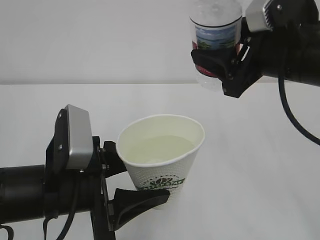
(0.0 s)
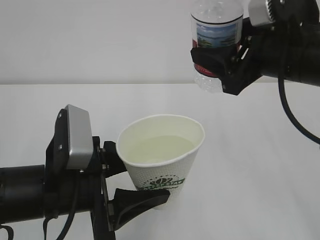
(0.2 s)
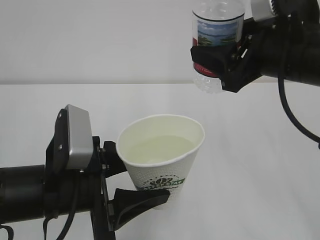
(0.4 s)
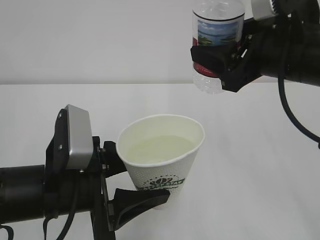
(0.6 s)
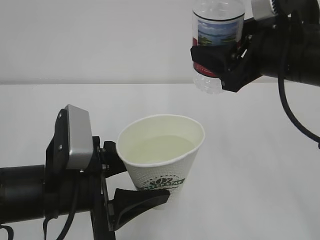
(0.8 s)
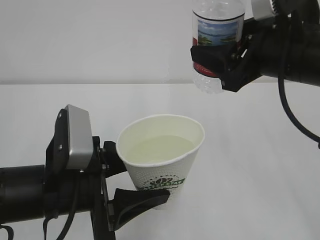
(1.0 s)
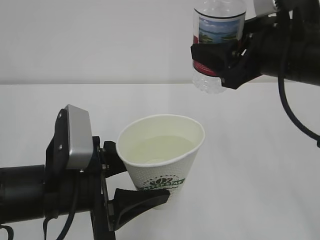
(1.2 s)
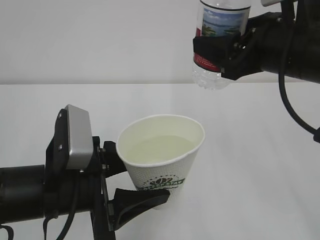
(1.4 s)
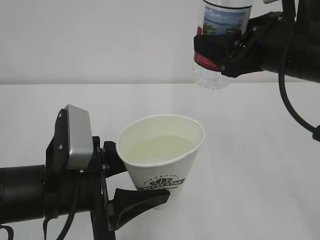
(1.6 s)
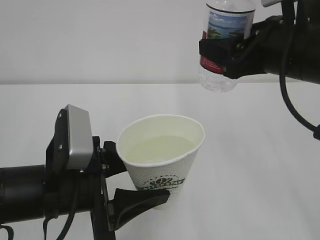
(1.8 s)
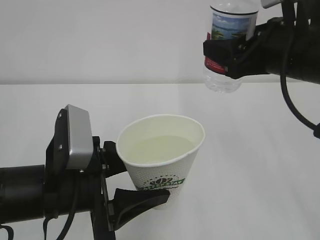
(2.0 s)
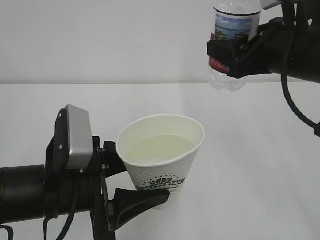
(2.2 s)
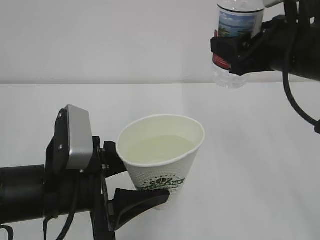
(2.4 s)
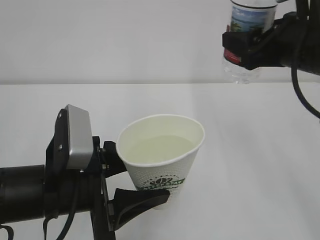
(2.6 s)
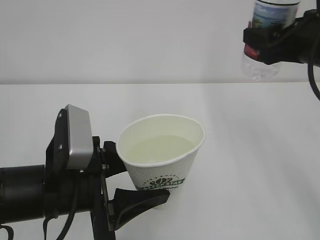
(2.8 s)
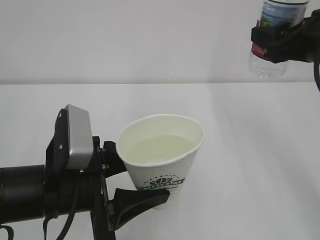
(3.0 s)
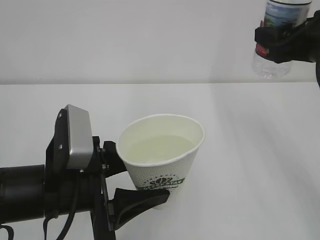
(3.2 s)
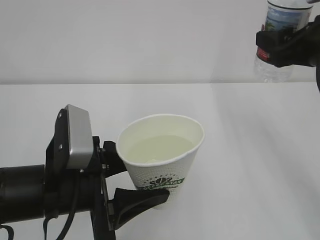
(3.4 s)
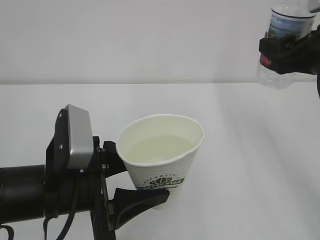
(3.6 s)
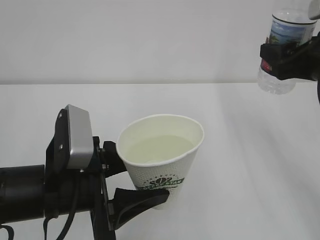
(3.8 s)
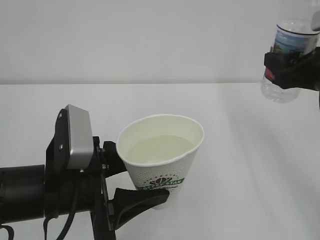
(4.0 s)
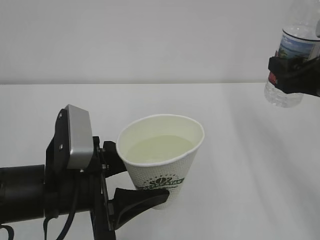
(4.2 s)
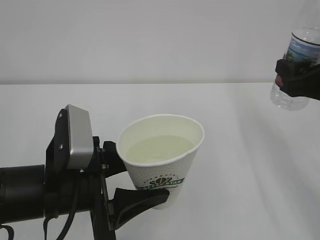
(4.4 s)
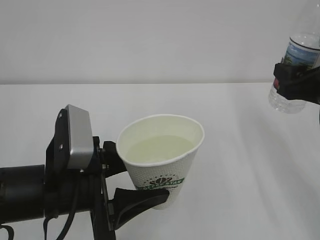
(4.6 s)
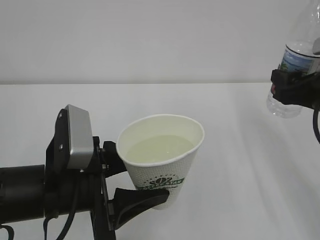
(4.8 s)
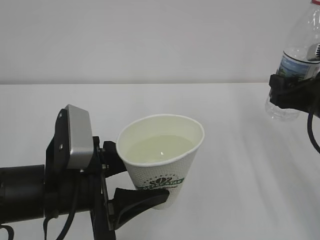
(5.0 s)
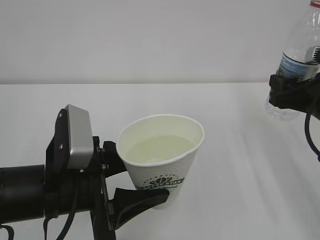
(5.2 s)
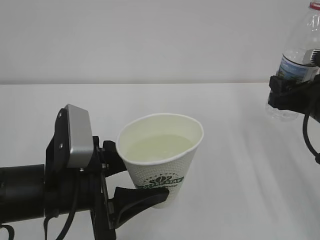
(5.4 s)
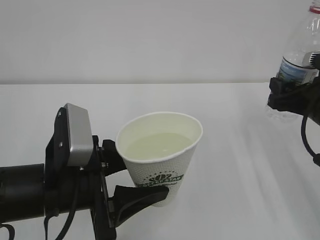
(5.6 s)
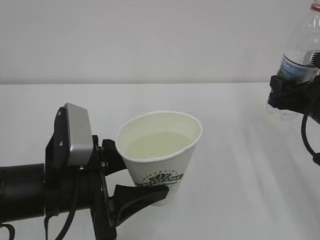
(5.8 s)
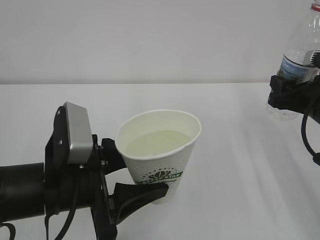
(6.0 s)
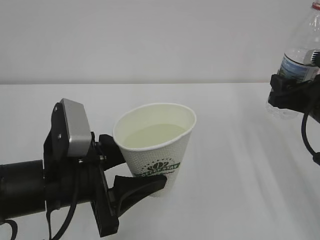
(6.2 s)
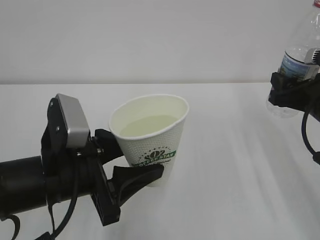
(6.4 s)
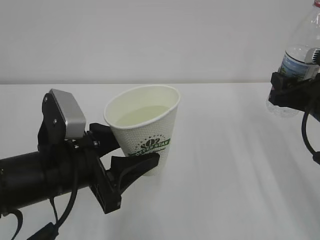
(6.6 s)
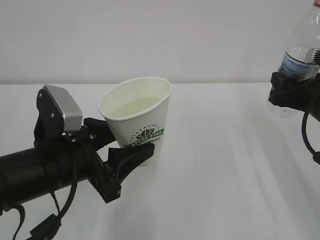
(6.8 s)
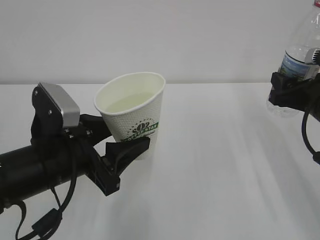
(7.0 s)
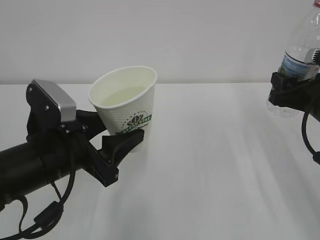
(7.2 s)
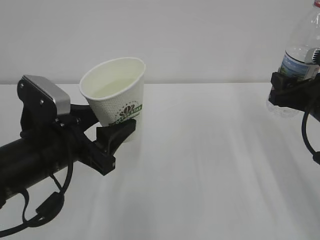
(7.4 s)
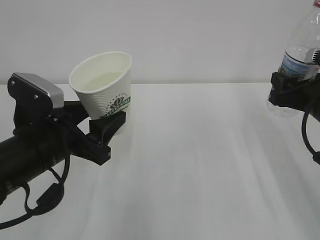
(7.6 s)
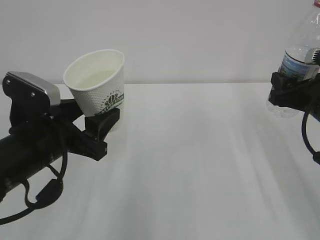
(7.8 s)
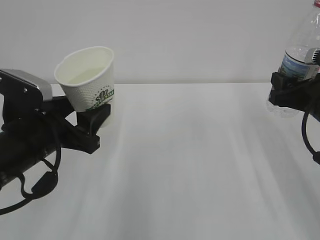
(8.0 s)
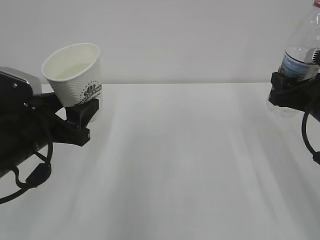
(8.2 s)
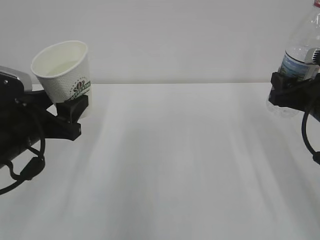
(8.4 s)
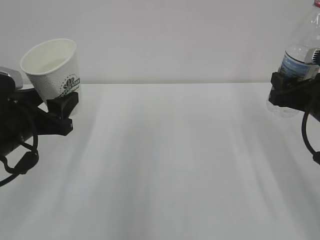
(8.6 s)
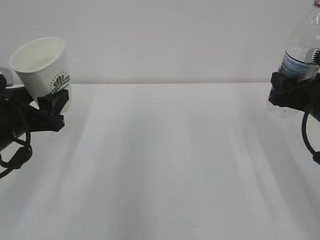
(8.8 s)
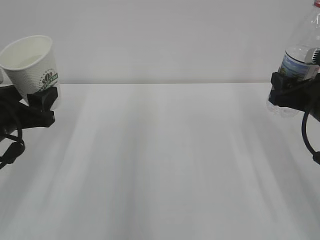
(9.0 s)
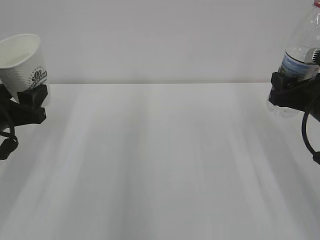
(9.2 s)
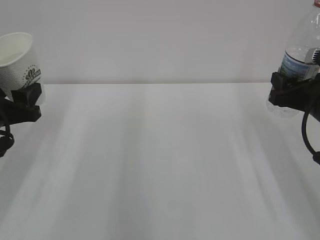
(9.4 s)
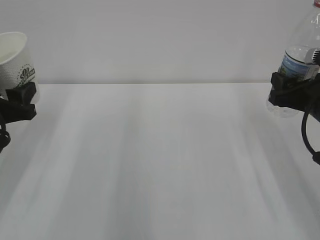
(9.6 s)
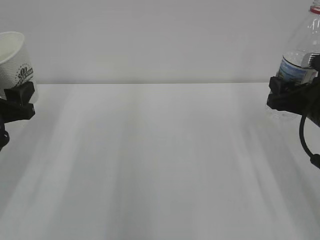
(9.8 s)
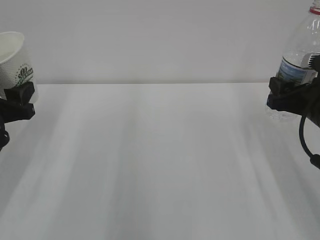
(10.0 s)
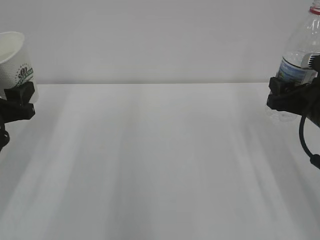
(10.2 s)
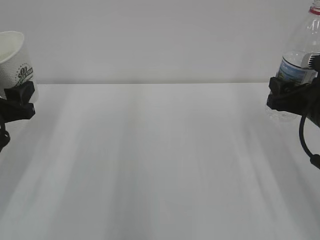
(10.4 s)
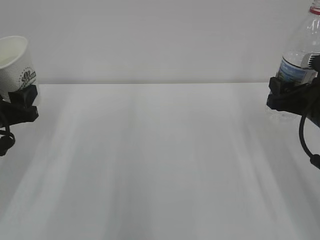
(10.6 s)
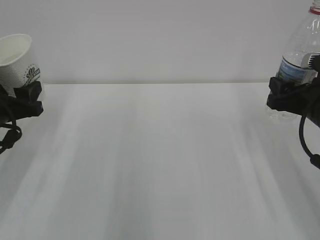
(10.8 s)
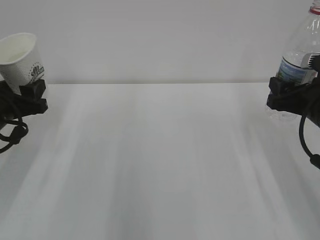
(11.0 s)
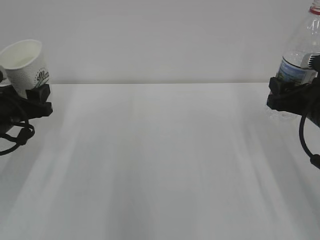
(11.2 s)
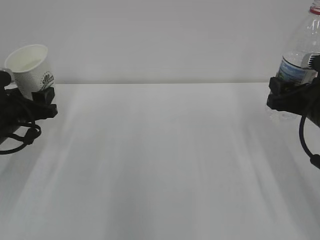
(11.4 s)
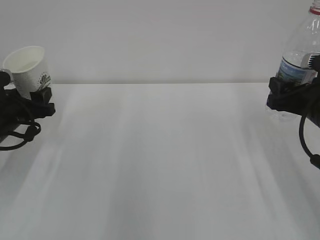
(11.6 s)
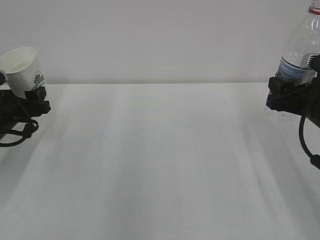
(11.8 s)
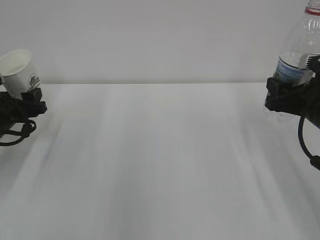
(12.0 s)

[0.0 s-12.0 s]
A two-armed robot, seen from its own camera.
0.0 to 1.6 s: The grippers make only small movements.
1.6 to 3.0 s: The right gripper heads to the right, covering some 5 cm.
3.0 to 4.4 s: The right gripper is displaced downward by some 5 cm.
4.4 to 6.0 s: The right gripper goes some 5 cm downward.
6.0 to 7.6 s: The left gripper moves some 5 cm.
7.6 to 9.0 s: The left gripper shifts roughly 10 cm to the left.
9.0 to 10.4 s: The grippers stay close to where they were, moving slightly.
10.4 to 12.0 s: The left gripper goes roughly 10 cm forward and downward.

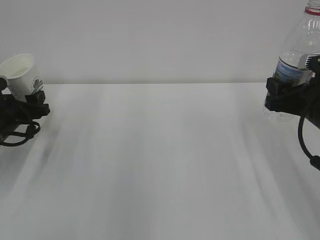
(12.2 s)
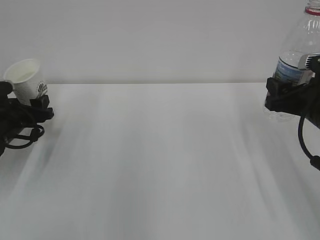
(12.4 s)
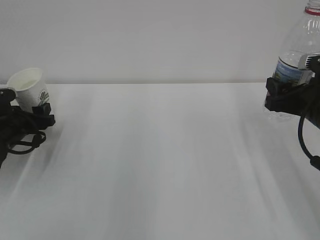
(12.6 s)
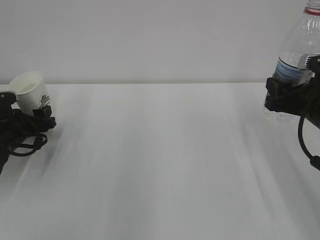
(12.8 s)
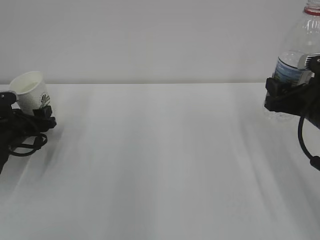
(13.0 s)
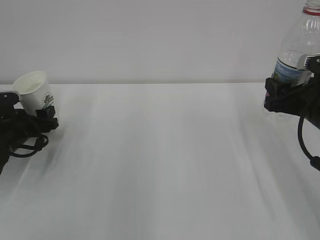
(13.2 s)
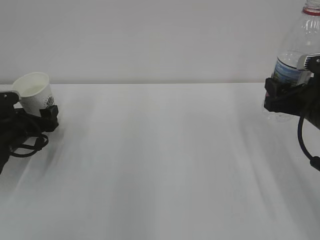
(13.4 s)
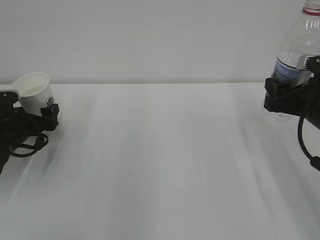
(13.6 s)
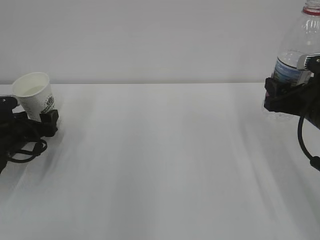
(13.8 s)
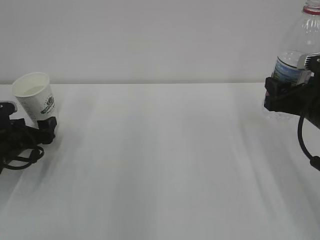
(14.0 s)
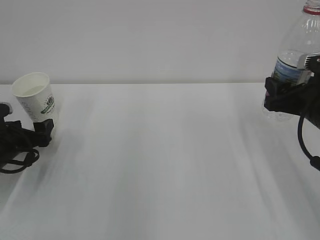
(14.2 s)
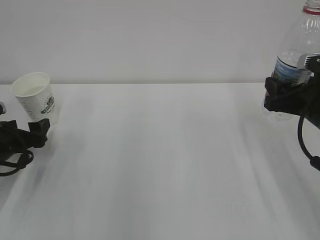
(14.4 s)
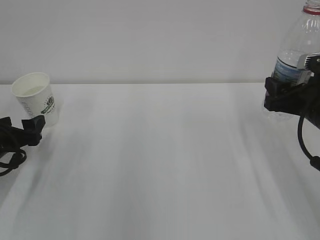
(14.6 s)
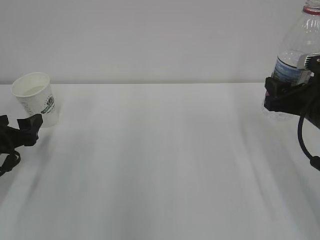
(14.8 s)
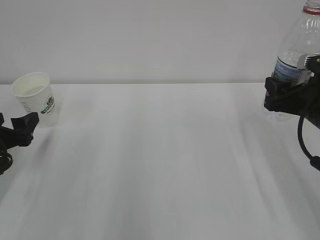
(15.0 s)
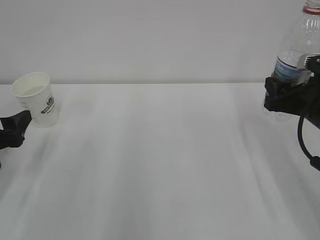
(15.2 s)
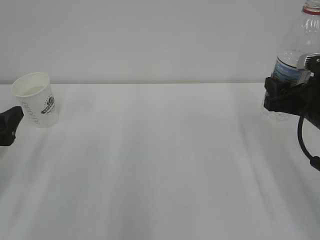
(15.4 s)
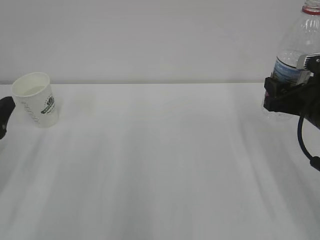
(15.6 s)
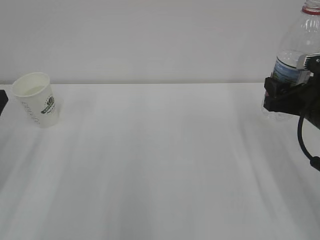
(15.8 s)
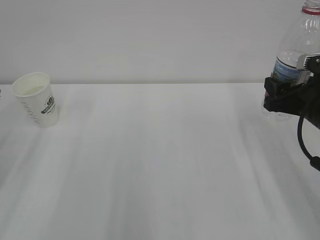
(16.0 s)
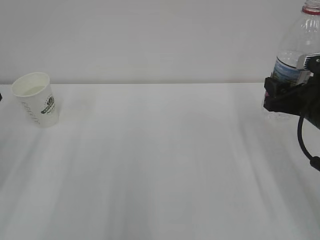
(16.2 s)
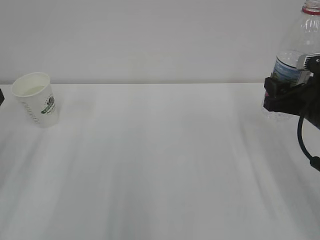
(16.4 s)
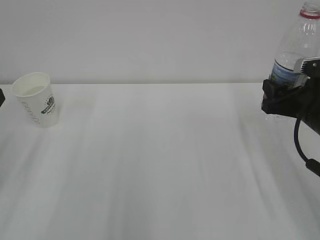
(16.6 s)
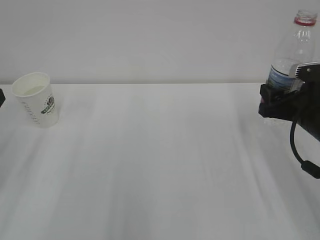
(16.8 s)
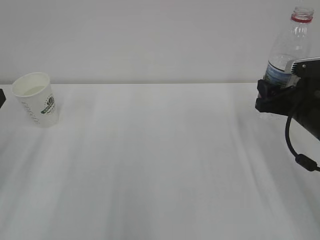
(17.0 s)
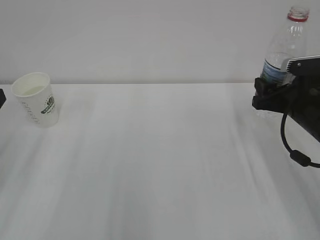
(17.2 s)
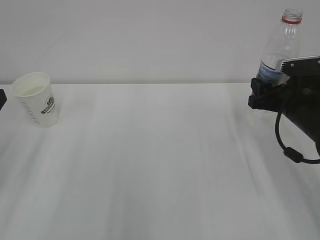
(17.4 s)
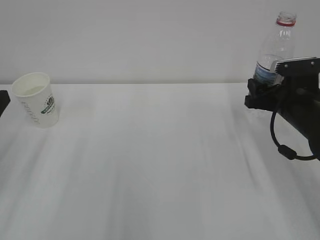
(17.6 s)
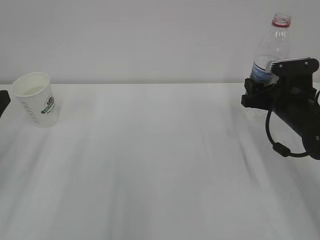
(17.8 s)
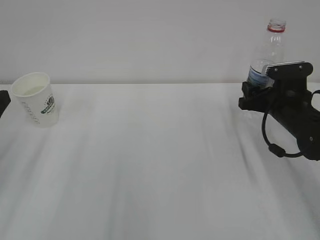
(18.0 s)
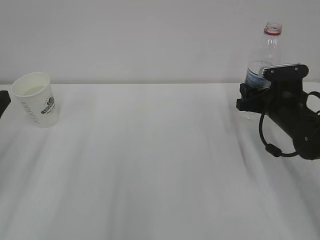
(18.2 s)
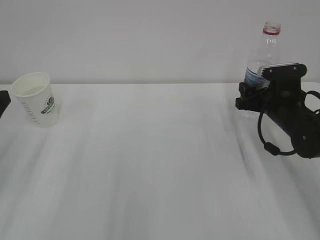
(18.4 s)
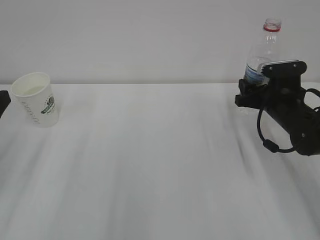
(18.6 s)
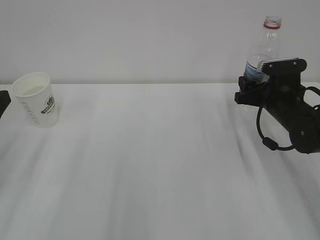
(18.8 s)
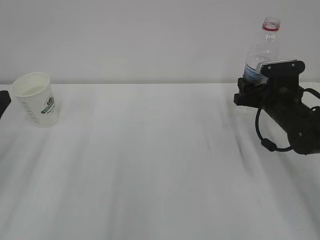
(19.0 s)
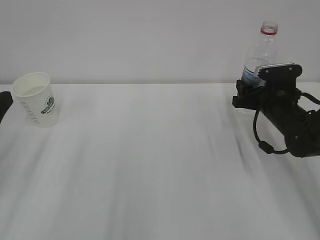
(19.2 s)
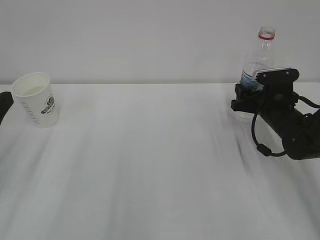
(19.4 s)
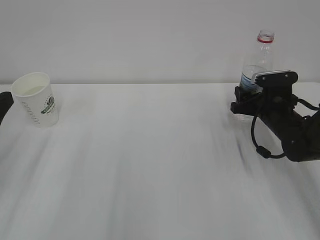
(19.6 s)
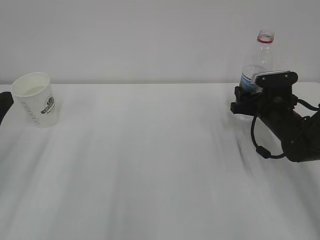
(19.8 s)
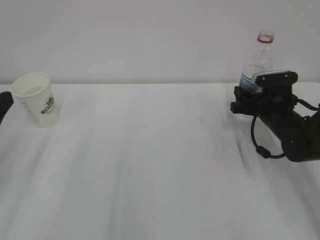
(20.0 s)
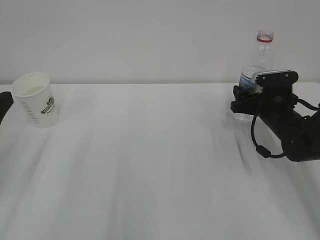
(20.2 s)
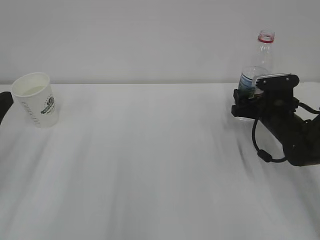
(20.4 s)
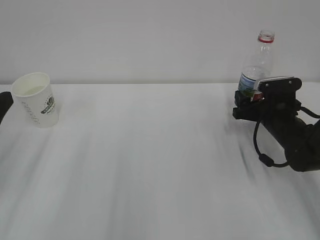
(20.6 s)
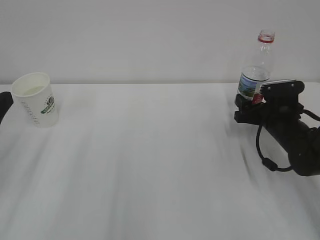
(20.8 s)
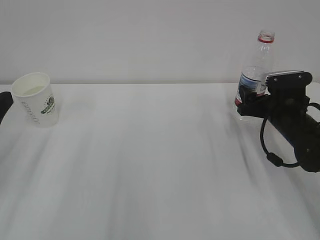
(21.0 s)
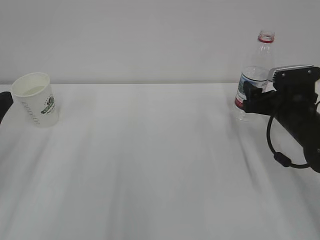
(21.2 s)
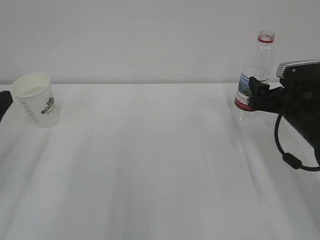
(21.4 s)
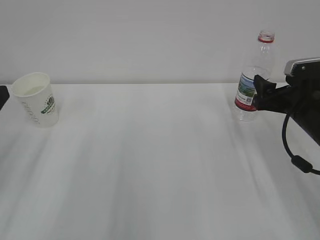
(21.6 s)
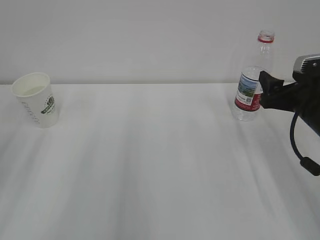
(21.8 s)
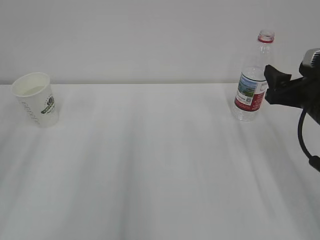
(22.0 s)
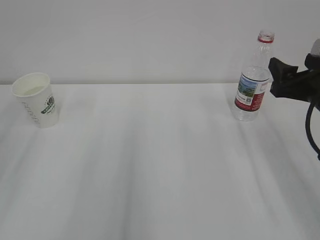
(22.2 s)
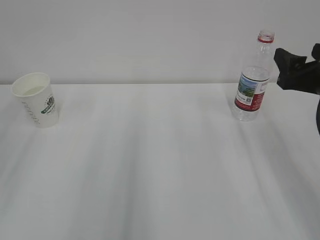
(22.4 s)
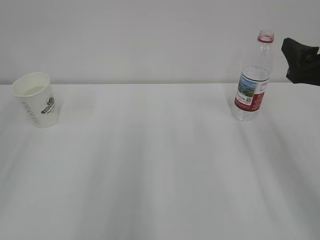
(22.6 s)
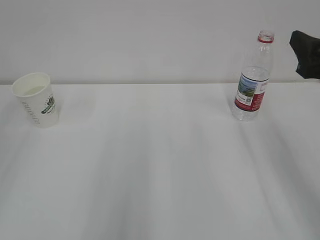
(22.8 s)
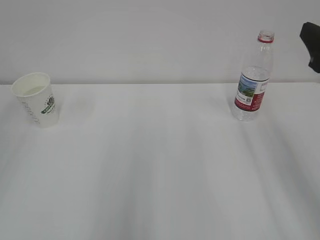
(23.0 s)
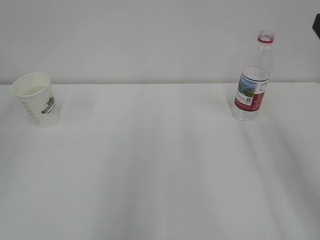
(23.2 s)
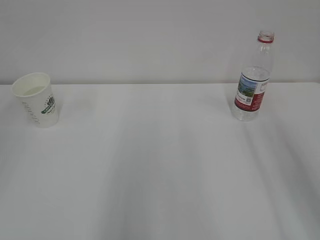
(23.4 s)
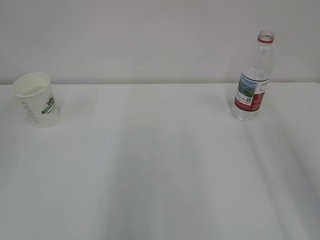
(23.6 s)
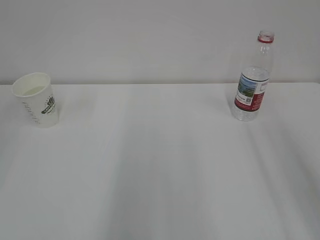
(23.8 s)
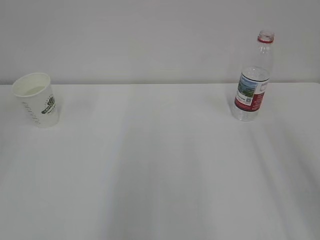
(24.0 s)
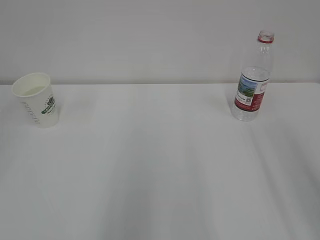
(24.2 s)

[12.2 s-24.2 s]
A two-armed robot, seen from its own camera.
12.2 to 13.8 s: The left gripper opens.
13.8 to 15.2 s: The left gripper is displaced backward and upward by some 15 cm.
15.2 to 16.6 s: The left gripper shifts roughly 5 cm upward.
16.6 to 18.2 s: The right gripper moves forward and downward, about 10 cm.
18.2 to 19.8 s: The grippers move only a little.
19.8 to 21.2 s: The right gripper changes place by roughly 5 cm, and opens.
21.2 to 22.6 s: The right gripper moves upward and backward, approximately 15 cm.
22.6 to 24.2 s: The right gripper travels backward and upward by some 15 cm.
